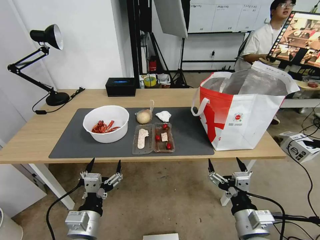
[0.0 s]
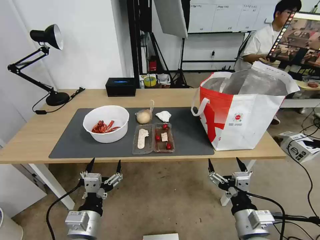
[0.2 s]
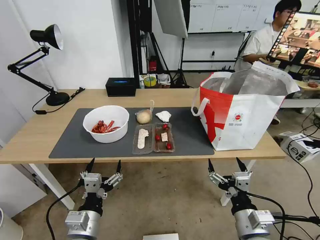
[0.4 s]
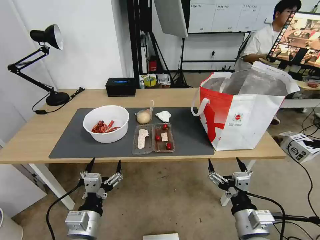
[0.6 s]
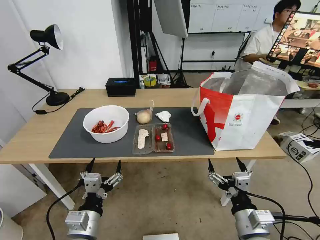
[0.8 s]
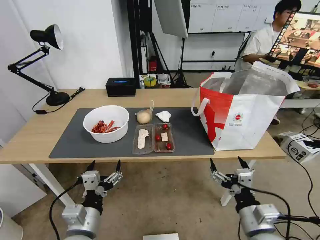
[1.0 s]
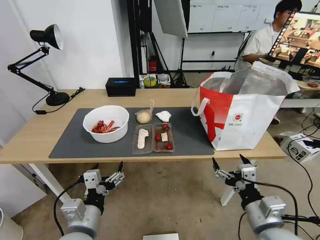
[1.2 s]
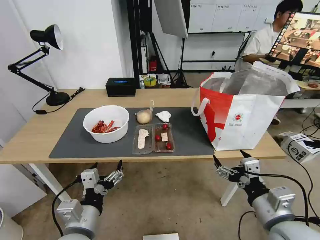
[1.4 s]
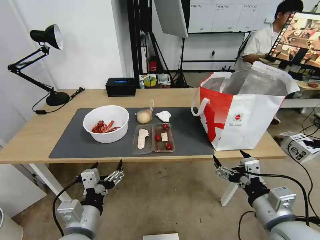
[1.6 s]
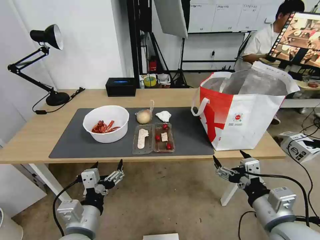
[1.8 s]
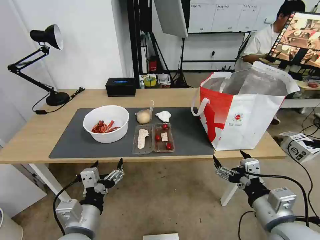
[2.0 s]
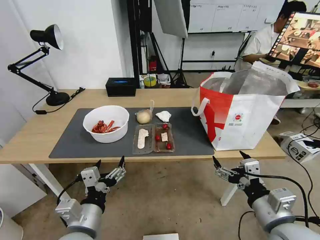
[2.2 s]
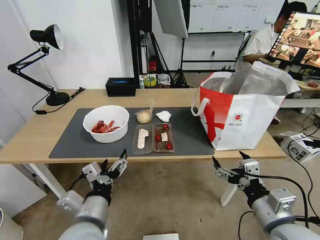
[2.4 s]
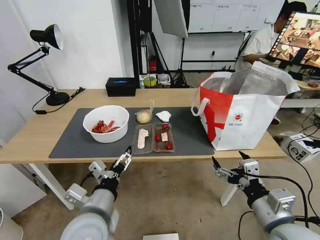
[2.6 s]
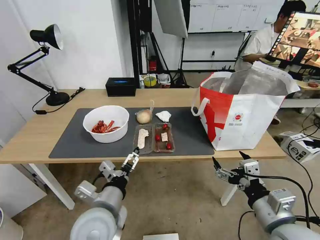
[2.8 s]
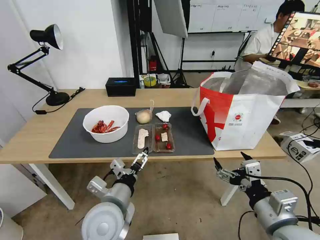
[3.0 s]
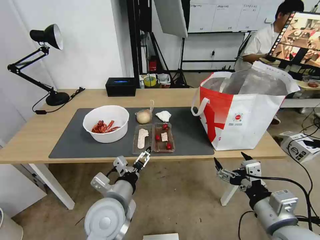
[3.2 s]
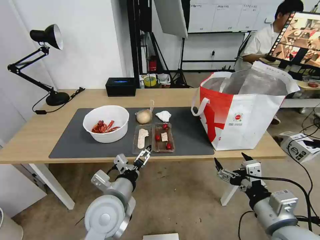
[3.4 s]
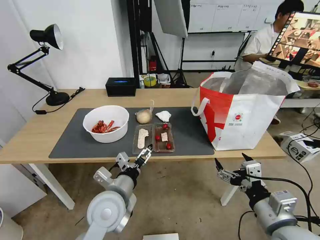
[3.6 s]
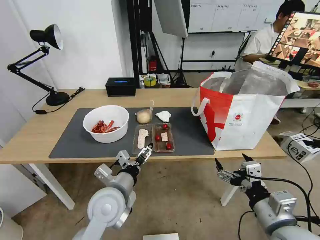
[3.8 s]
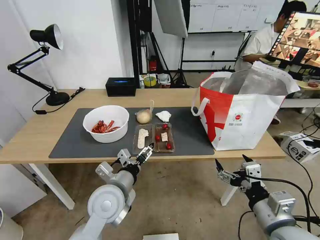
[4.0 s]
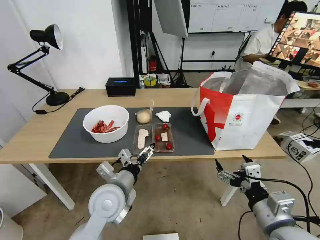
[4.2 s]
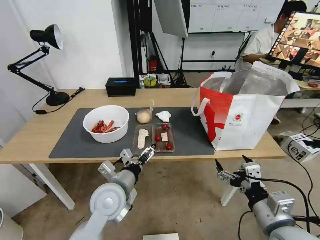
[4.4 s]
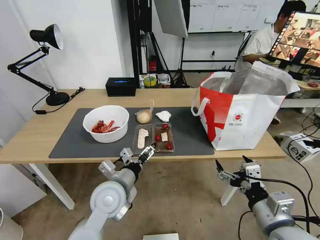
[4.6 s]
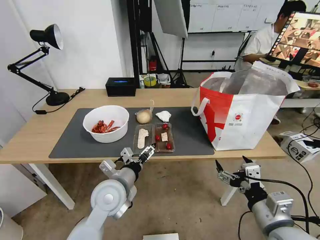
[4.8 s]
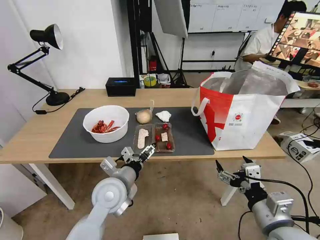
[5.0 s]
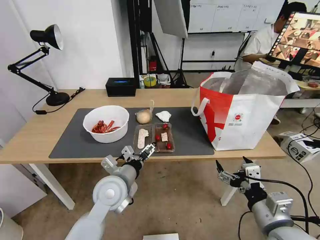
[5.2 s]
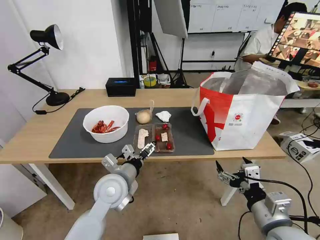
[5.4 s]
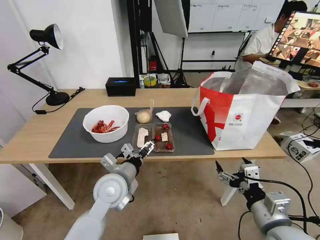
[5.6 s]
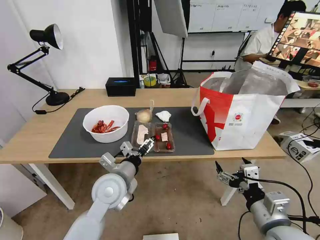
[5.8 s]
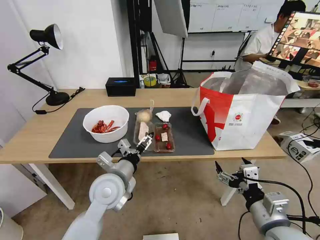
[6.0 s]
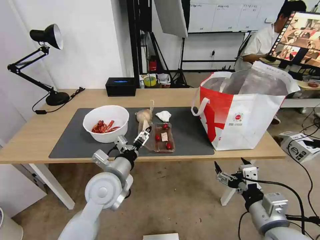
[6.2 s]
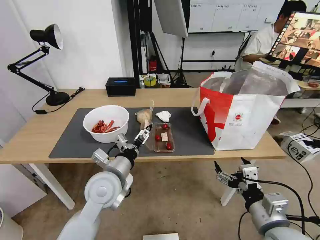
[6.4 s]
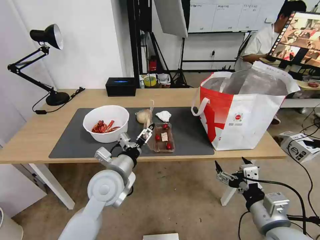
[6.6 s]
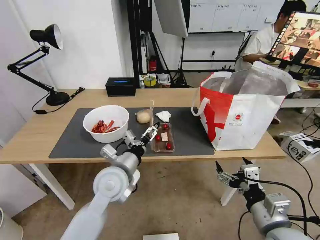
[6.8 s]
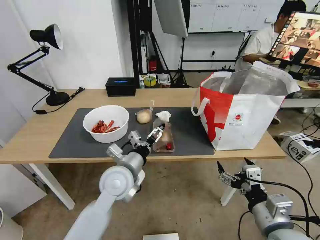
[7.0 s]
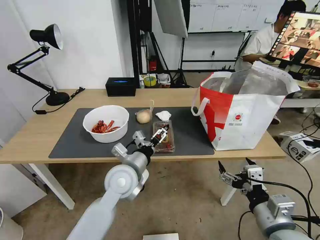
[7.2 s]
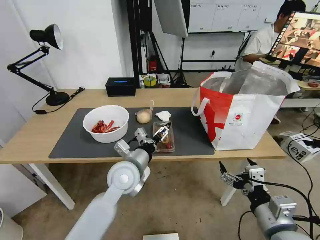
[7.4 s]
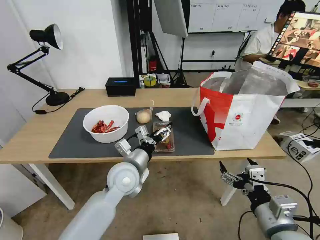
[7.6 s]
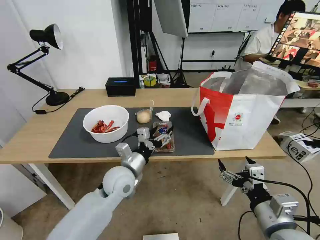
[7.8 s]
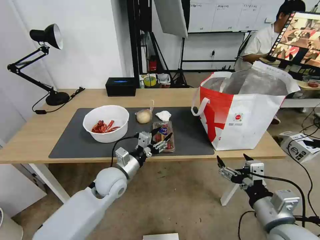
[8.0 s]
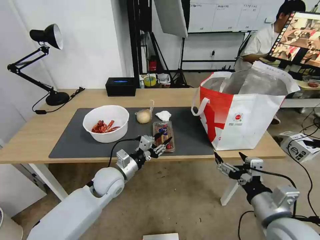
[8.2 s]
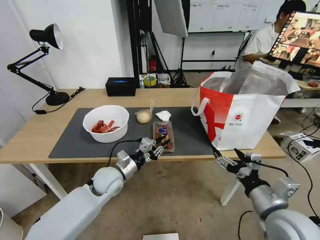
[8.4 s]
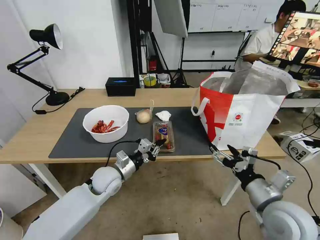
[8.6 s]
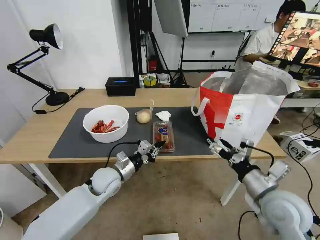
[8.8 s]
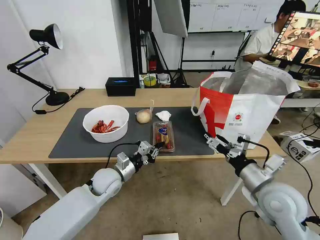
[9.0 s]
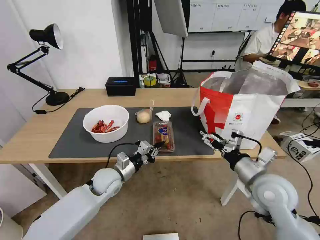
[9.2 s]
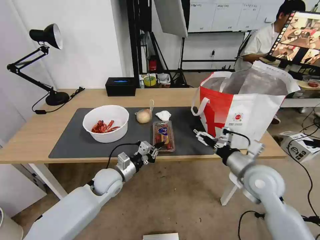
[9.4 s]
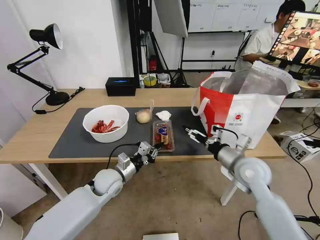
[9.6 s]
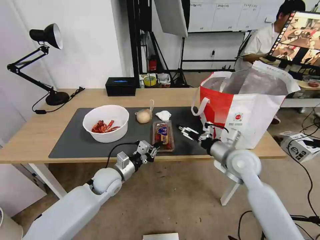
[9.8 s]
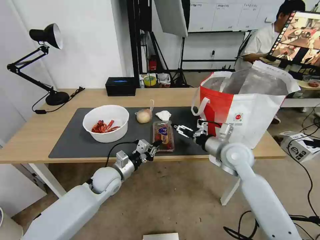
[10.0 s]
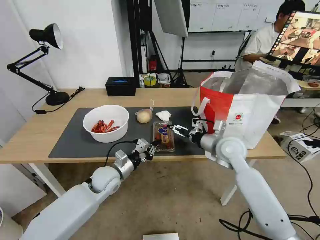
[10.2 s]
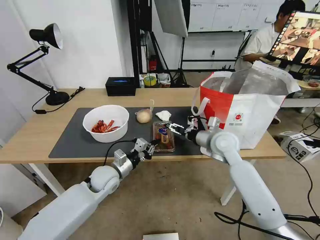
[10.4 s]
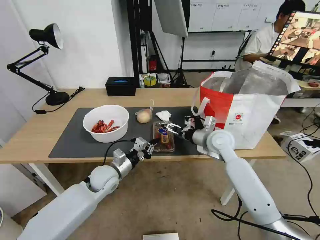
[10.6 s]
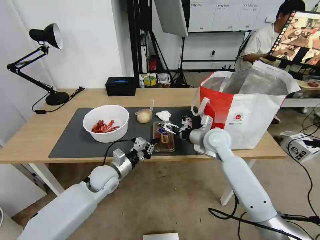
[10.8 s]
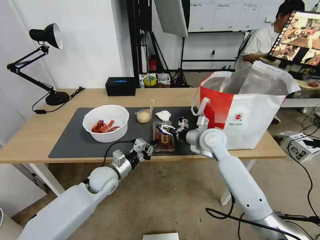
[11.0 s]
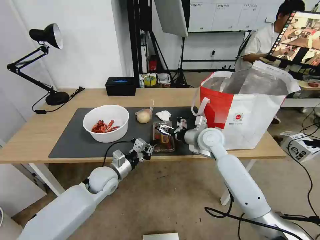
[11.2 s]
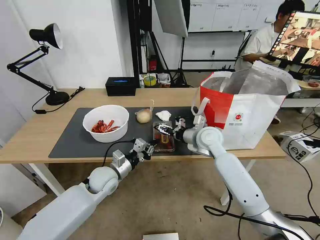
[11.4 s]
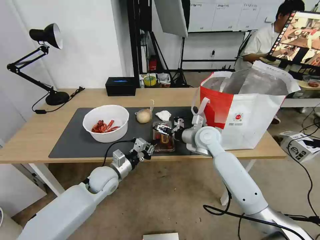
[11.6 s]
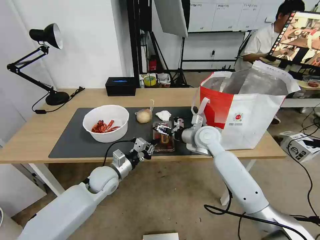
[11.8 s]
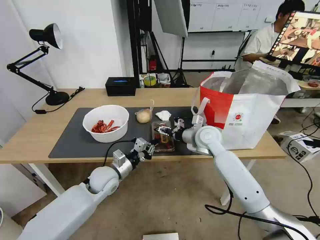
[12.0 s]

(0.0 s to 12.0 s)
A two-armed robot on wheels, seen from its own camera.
Task of the whole recording: Pick up the trash from the table and place it into the takeout bag.
1.6 s - 3.0 s: The left gripper is displaced forward and to the right by about 10 cm.
3.0 s - 4.4 s: The left gripper heads forward, covering some 5 cm.
4.4 s - 6.0 s: The grippers stay close to where they were, moving slightly.
6.0 s - 7.6 s: The left gripper ends up about 5 cm from where it was.
7.6 s - 9.0 s: The right gripper heads forward, covering roughly 10 cm. Meanwhile the left gripper heads downward and to the left, covering about 10 cm, and closes up.
9.0 s - 10.4 s: The right gripper shifts roughly 20 cm forward and to the left.
10.4 s - 12.0 s: The right gripper heads to the left, covering approximately 5 cm.

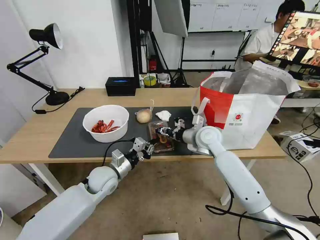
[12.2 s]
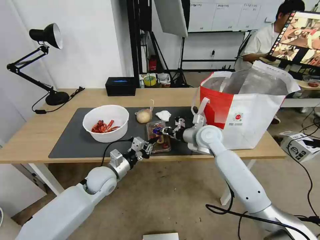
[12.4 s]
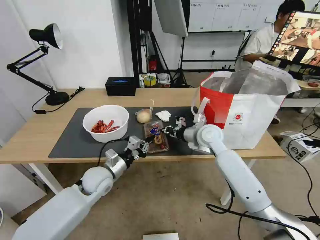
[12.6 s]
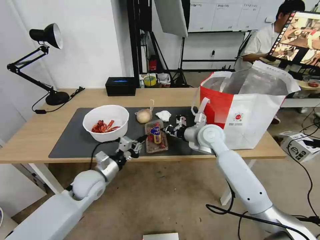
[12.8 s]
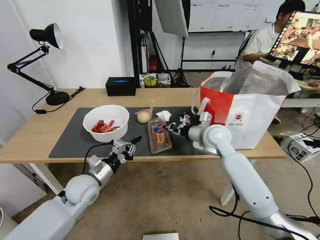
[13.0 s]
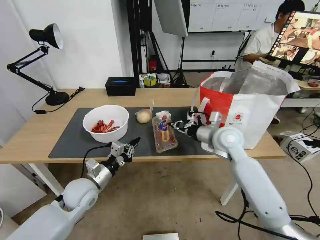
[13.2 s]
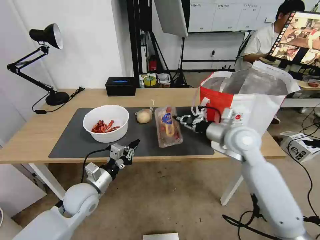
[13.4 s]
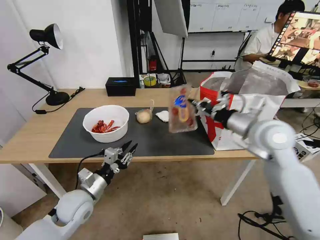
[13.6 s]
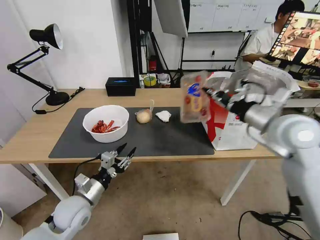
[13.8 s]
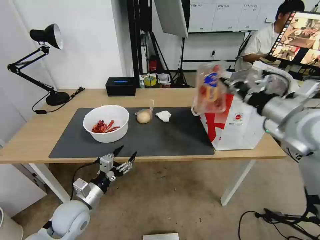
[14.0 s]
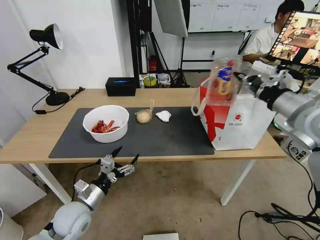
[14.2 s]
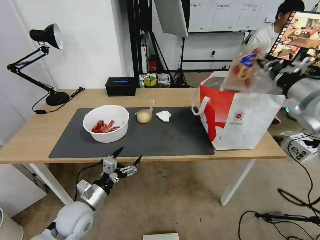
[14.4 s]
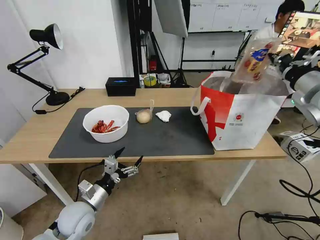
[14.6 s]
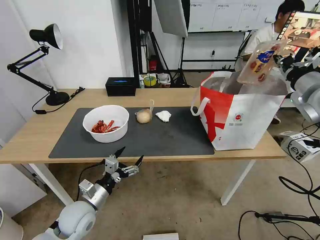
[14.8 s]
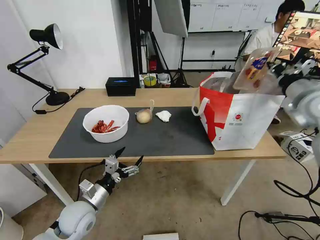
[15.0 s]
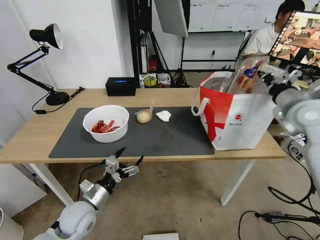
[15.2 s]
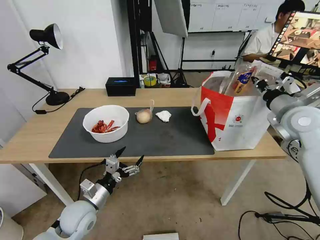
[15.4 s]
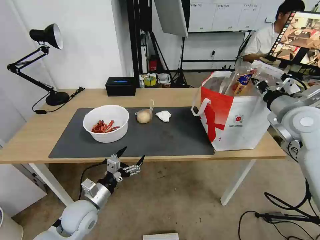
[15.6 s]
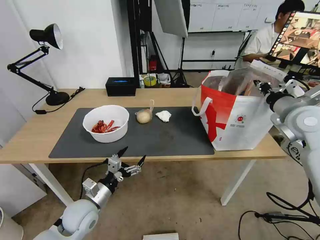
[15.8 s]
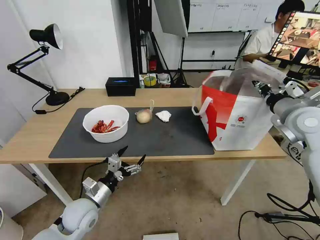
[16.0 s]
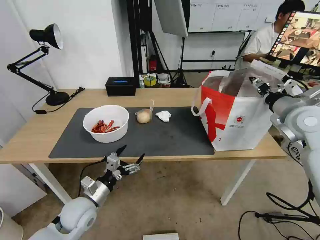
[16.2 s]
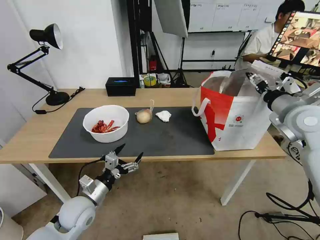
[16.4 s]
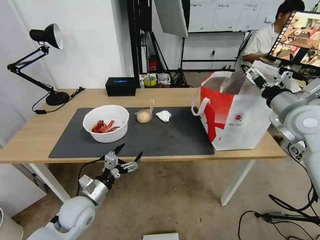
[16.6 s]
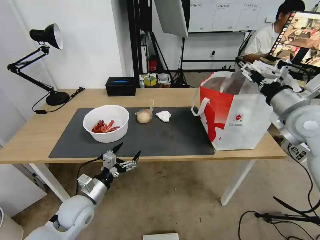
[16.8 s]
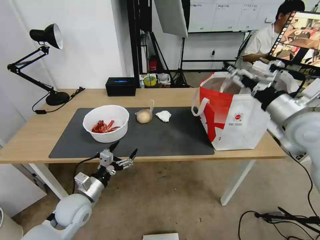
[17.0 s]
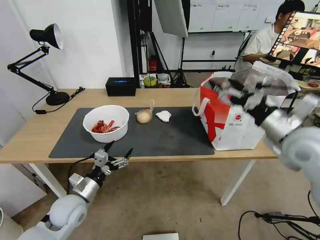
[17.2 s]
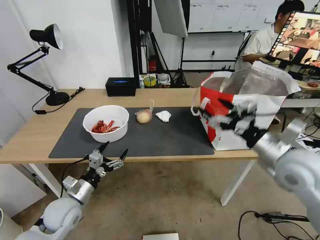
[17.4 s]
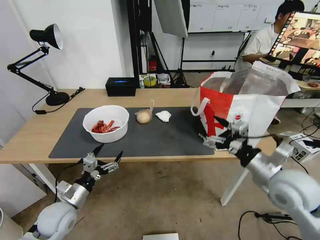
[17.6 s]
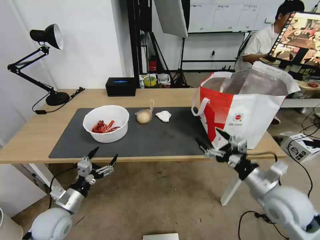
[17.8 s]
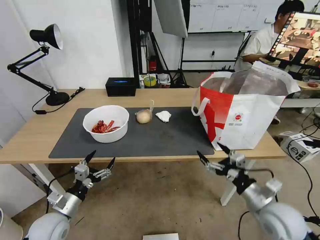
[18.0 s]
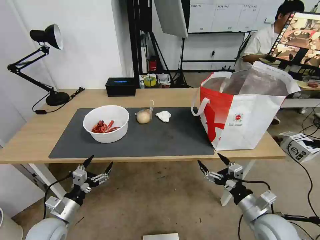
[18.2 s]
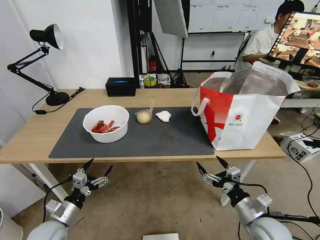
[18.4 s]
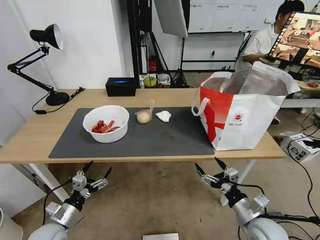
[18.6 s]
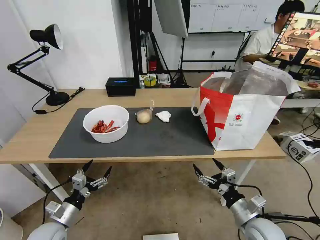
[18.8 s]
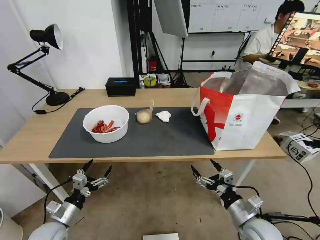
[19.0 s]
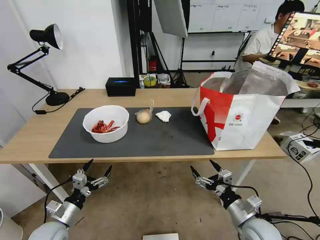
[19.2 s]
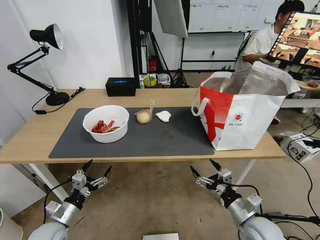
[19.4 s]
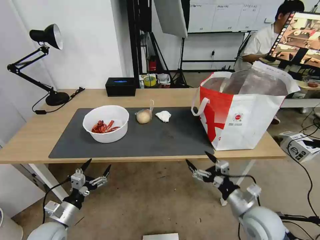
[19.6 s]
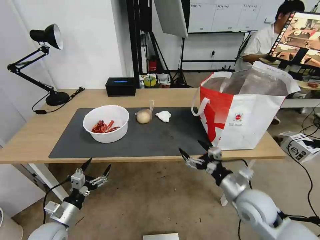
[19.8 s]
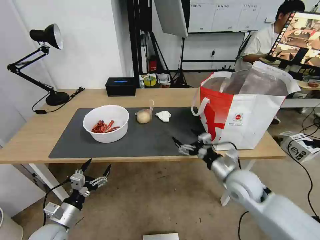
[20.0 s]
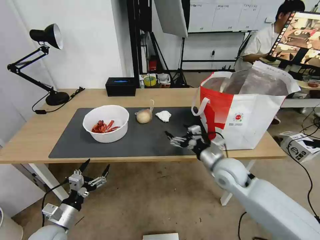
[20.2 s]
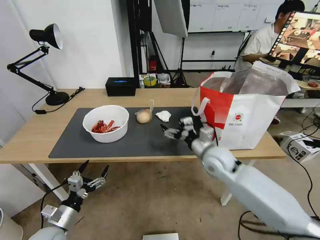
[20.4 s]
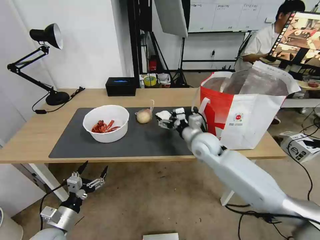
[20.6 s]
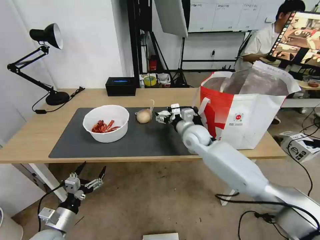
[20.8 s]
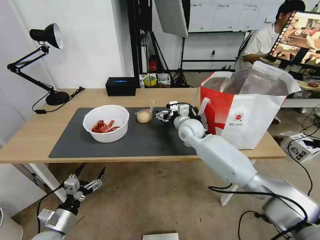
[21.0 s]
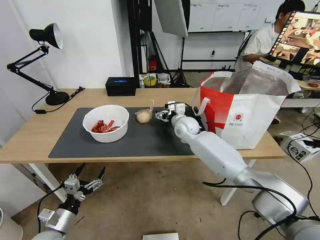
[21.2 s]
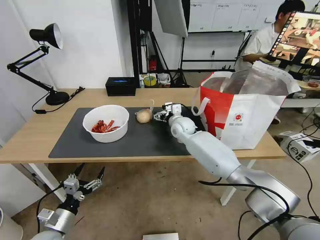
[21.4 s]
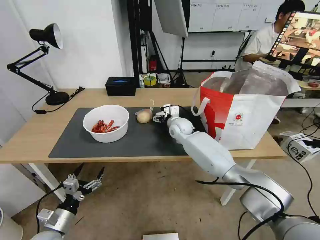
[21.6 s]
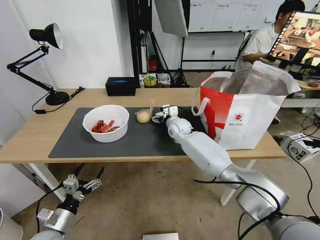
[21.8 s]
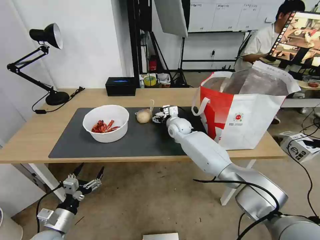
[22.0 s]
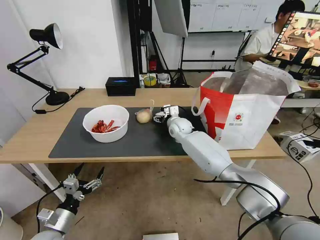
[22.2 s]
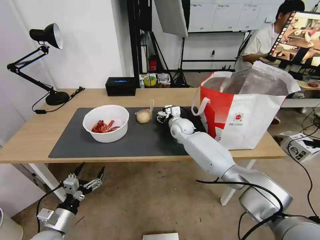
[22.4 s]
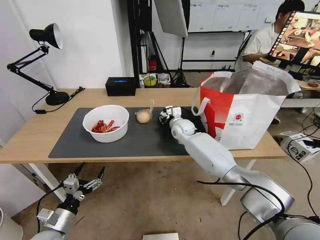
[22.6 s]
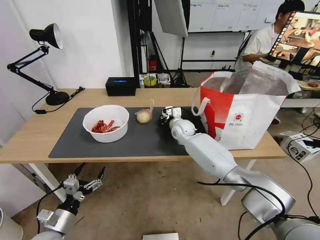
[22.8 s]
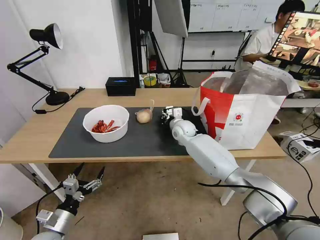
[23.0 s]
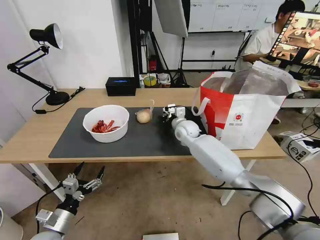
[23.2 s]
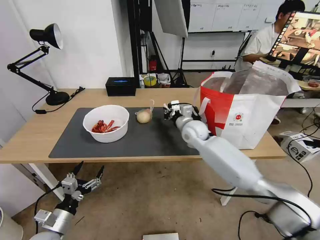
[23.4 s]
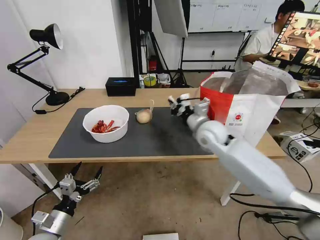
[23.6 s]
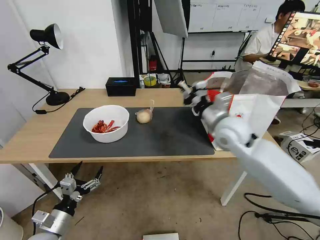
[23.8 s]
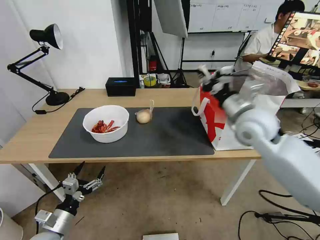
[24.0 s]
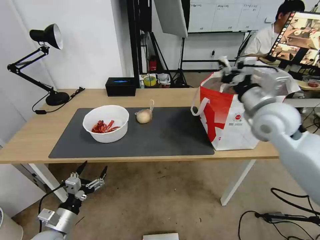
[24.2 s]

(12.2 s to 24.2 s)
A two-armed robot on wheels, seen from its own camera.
Task of the whole recording: Pick up the trash from the table and place it into the takeout bag.
12.2 s - 13.8 s: The left gripper travels backward and to the left by about 10 cm, and opens its fingers; the right gripper is displaced upward, to the right and backward by roughly 25 cm, and closes its fingers.
13.8 s - 15.2 s: The right gripper shifts about 10 cm to the right and forward; the left gripper opens.
15.2 s - 16.6 s: The right gripper opens its fingers.
16.6 s - 18.2 s: The left gripper is displaced to the left by some 10 cm, while the right gripper moves downward and backward, roughly 30 cm.
18.2 s - 19.8 s: The right gripper travels forward by some 5 cm.
19.8 s - 21.2 s: The right gripper goes roughly 35 cm forward and to the left.
21.2 s - 22.6 s: The right gripper closes up.
22.6 s - 24.2 s: The right gripper travels upward, to the right and backward by about 35 cm, and closes up.
